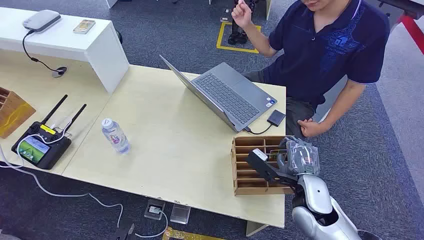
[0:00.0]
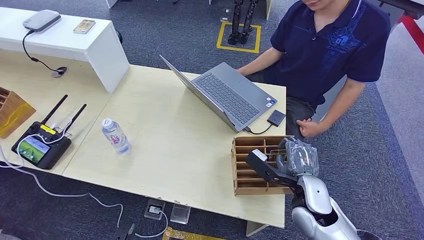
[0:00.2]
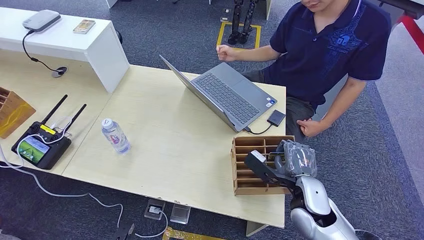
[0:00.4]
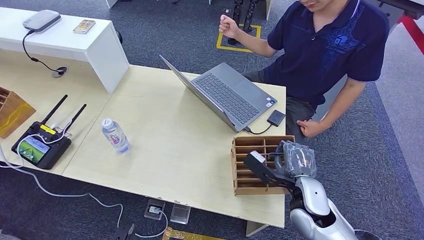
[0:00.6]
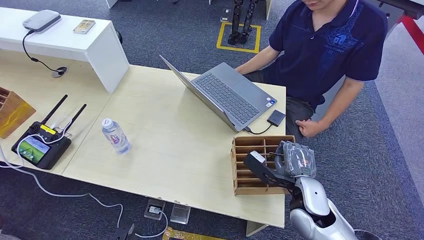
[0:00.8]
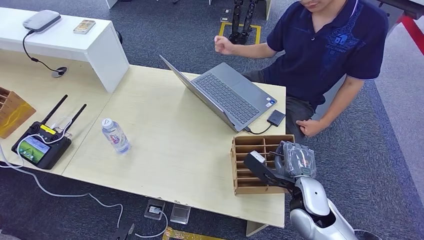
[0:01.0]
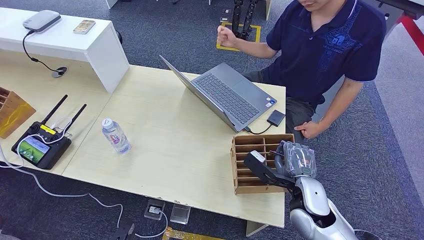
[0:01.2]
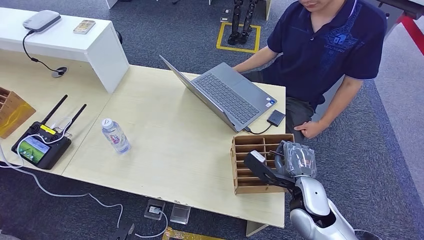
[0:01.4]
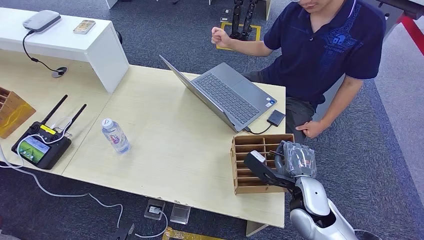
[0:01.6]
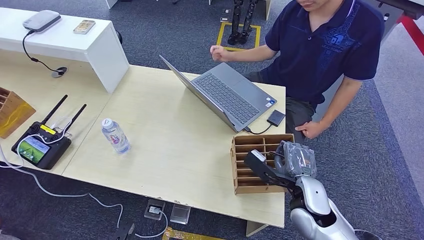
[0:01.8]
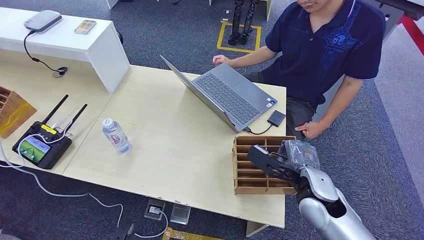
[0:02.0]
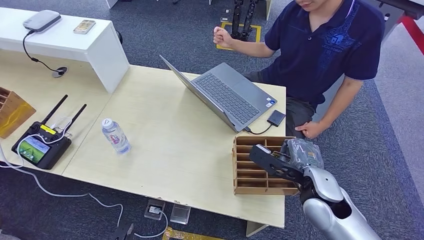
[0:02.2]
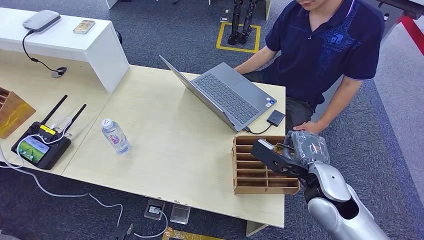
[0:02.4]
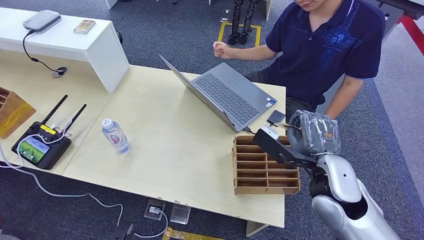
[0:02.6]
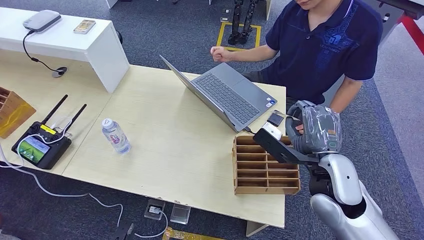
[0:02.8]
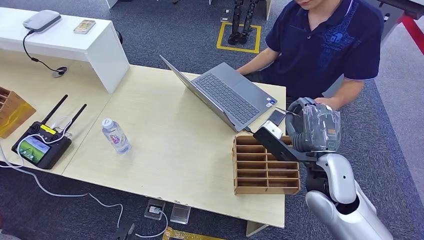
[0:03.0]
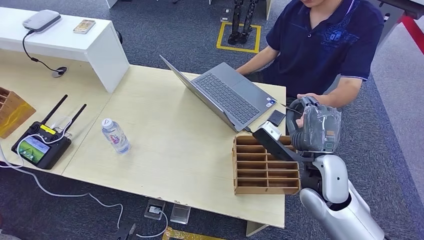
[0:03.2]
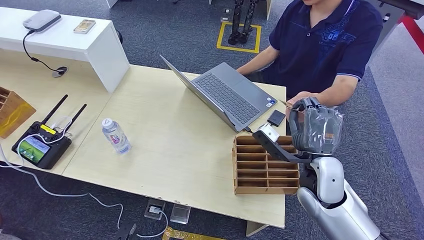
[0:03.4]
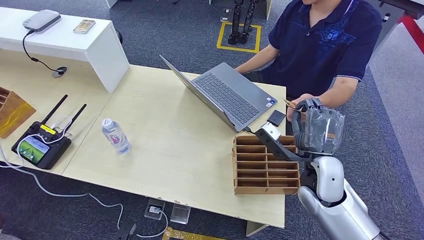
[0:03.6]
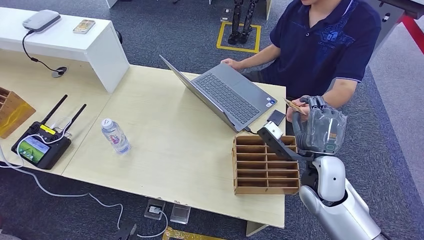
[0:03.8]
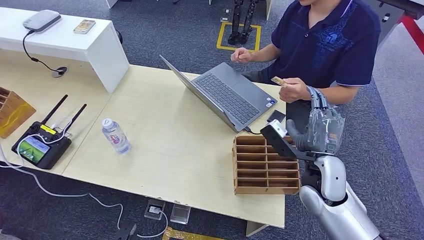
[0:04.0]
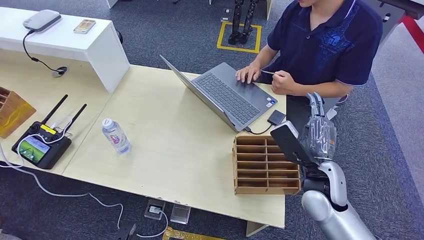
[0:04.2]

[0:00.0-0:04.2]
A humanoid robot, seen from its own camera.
Step, 0:00.0 to 0:02.8: Pick up the room card from the card holder.
Step, 0:03.0 to 0:04.2: Hand the room card to the target.
0:01.4 to 0:02.8: The right hand travels upward by roughly 10 cm.
0:02.8 to 0:04.2: The right hand shifts about 5 cm downward.
